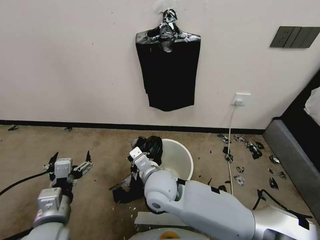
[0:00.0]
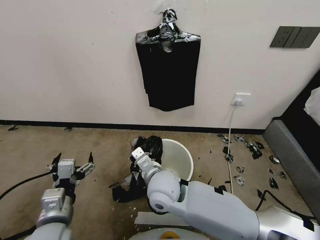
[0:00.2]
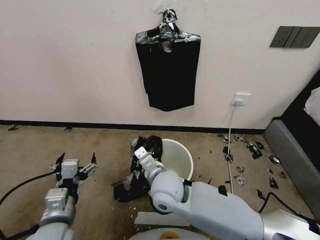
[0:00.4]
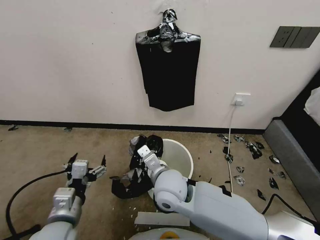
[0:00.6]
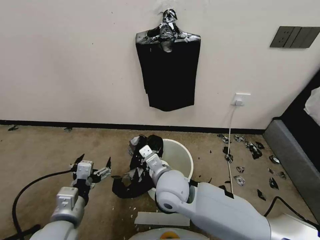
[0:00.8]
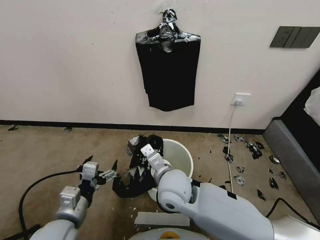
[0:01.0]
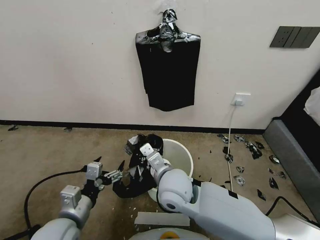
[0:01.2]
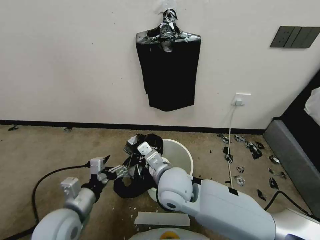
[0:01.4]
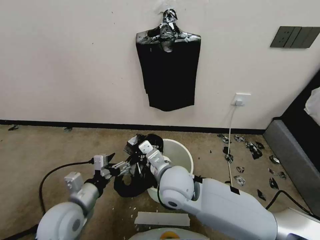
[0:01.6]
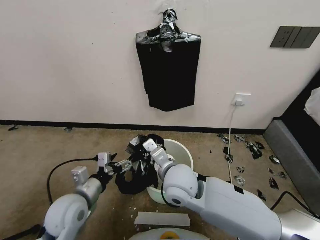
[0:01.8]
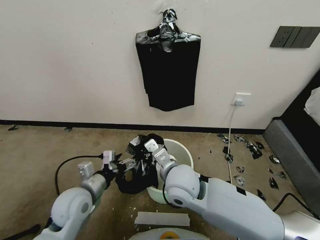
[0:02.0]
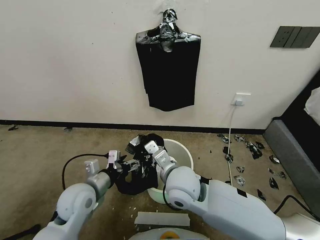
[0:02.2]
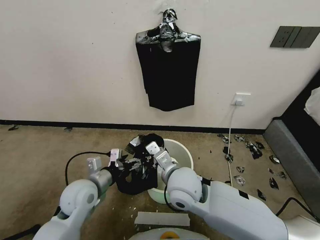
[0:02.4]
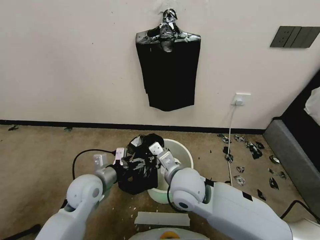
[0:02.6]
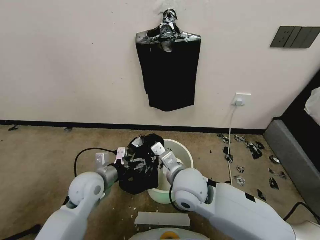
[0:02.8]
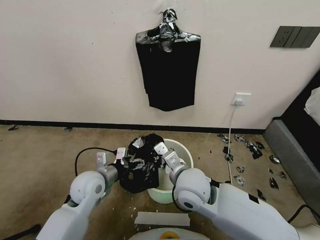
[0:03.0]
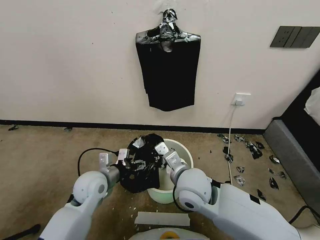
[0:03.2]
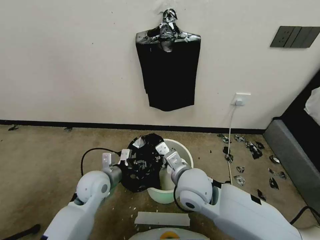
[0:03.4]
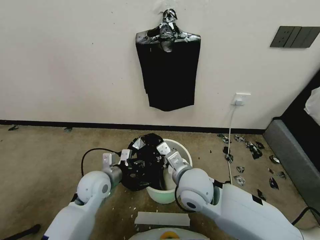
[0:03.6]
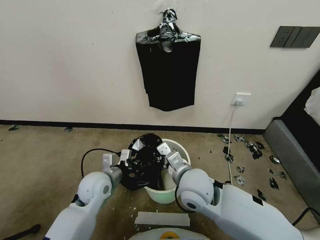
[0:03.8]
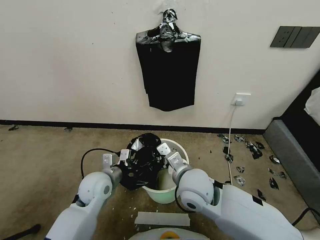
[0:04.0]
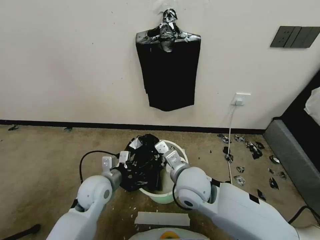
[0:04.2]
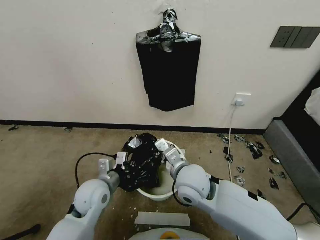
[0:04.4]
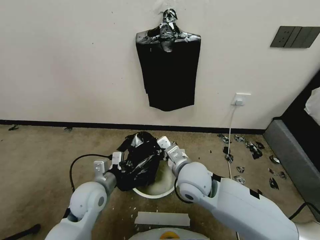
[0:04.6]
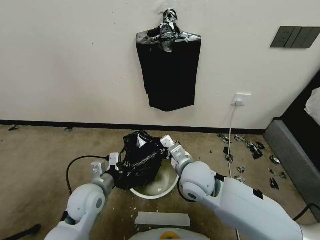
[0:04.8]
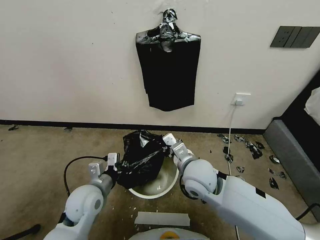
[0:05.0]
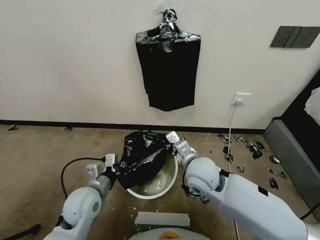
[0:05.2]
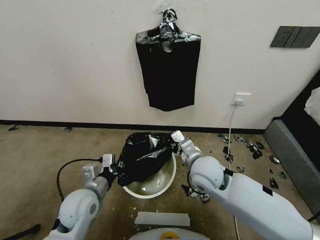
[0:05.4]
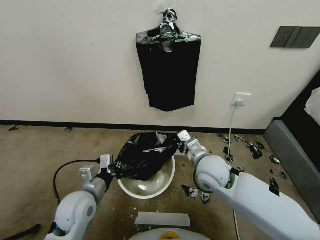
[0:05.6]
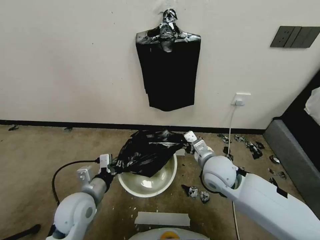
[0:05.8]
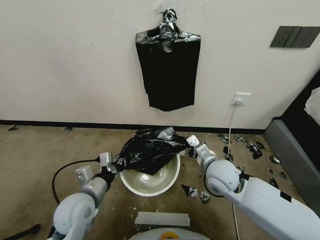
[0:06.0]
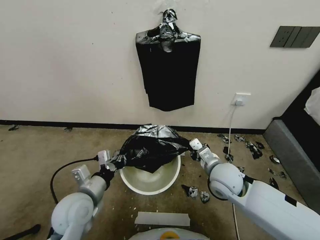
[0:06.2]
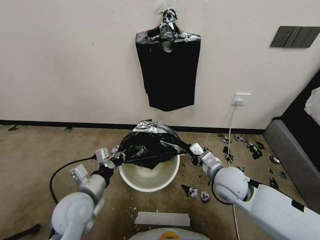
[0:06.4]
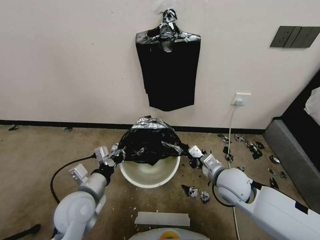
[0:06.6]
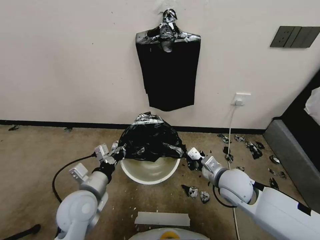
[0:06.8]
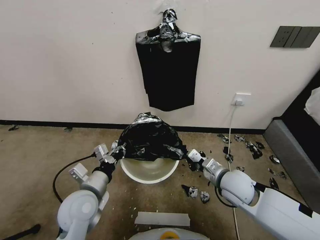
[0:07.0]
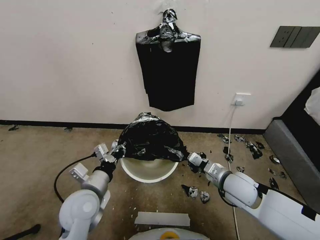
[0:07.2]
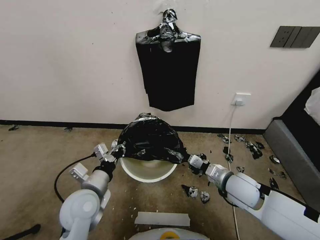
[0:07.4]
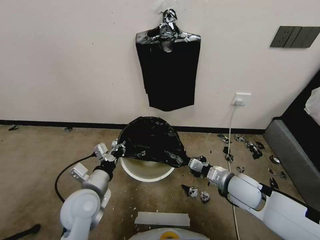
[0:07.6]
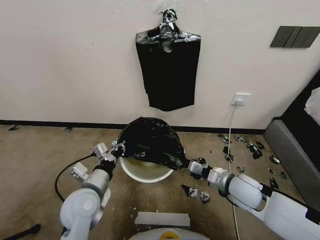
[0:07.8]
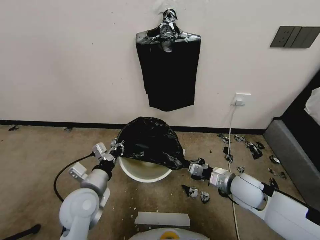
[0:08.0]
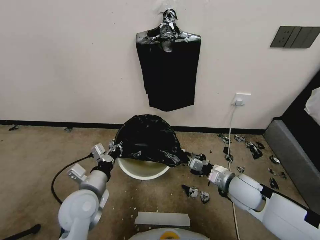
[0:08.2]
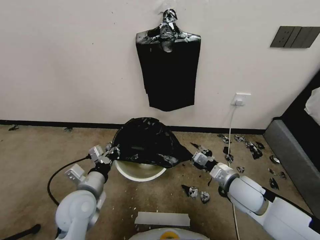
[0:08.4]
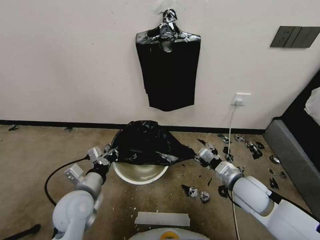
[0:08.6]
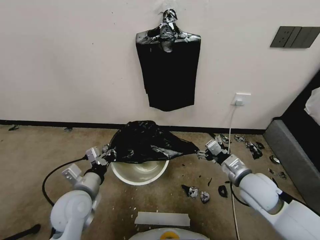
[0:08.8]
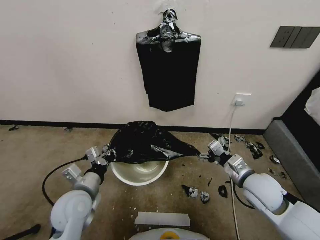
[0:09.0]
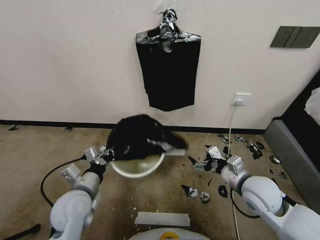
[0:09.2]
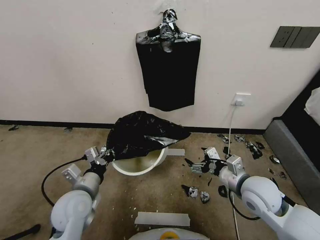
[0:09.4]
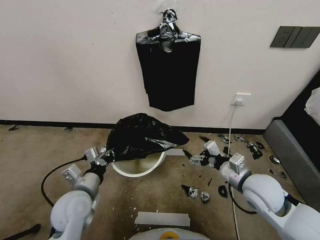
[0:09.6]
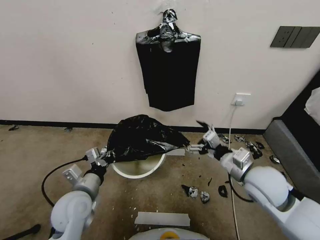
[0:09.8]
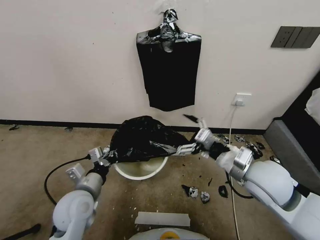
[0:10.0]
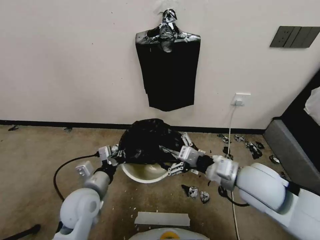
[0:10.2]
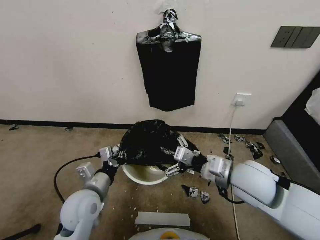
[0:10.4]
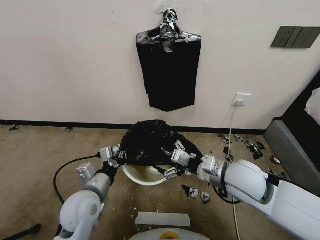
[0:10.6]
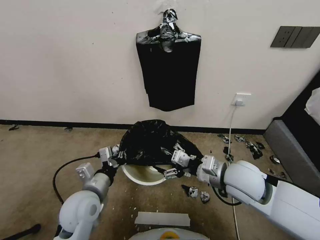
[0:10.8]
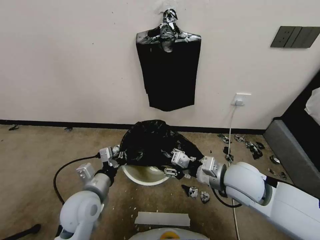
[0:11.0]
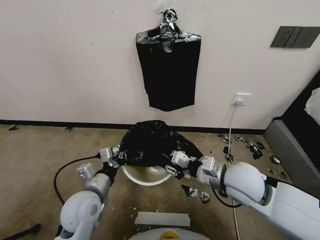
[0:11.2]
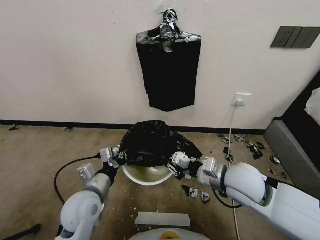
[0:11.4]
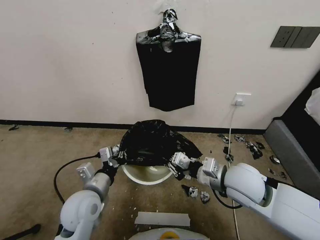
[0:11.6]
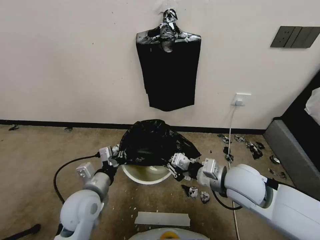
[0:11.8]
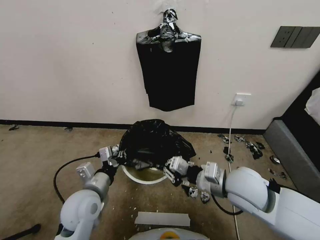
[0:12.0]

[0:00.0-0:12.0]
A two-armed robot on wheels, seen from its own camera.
Task of the whole recording: Place a trash bag onto the trash bin.
0:00.0 to 0:01.6: The right gripper shifts by roughly 5 cm. The left gripper travels forward by approximately 5 cm.
0:01.6 to 0:03.0: The left gripper heads forward, covering roughly 10 cm.
0:03.0 to 0:04.4: The left gripper closes.
0:04.4 to 0:06.0: The right gripper moves to the right, about 10 cm. The left gripper moves approximately 5 cm.
0:06.0 to 0:07.6: The right gripper shifts roughly 10 cm to the right.
0:07.6 to 0:09.0: The right gripper ends up roughly 5 cm from where it was, and opens.
0:09.0 to 0:10.4: The right gripper goes about 10 cm upward and to the left.
0:10.4 to 0:12.0: The right gripper closes.

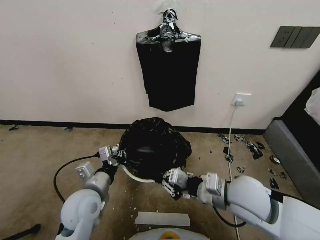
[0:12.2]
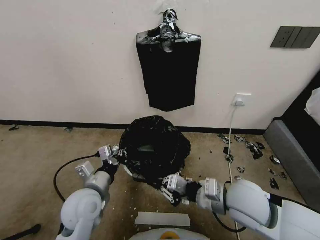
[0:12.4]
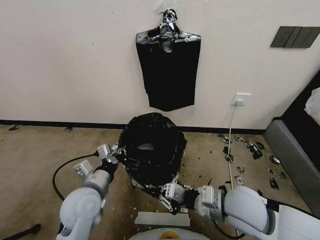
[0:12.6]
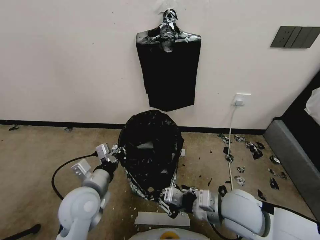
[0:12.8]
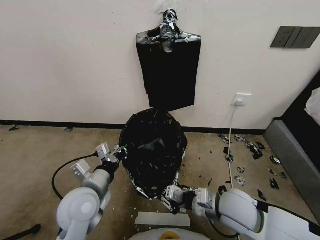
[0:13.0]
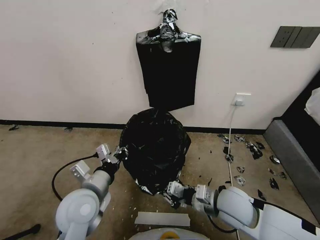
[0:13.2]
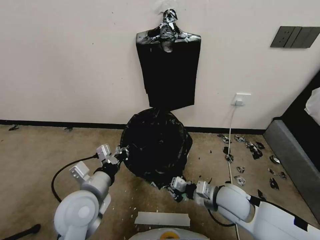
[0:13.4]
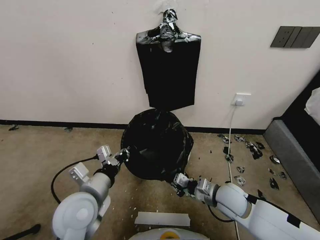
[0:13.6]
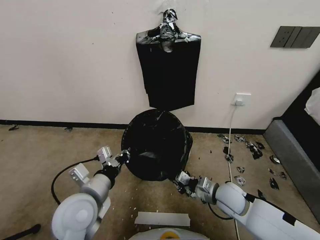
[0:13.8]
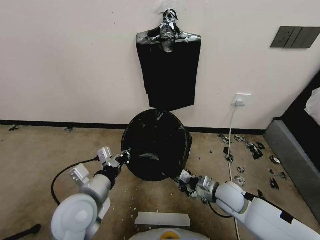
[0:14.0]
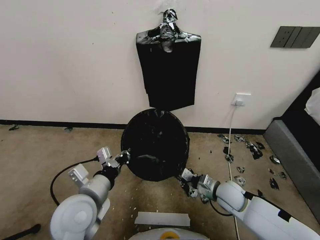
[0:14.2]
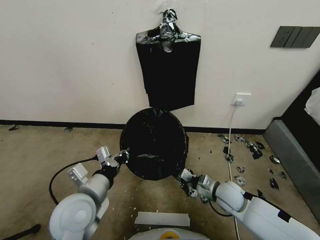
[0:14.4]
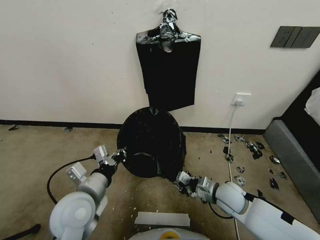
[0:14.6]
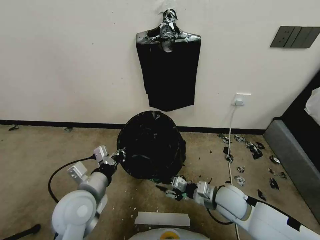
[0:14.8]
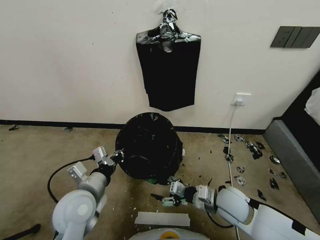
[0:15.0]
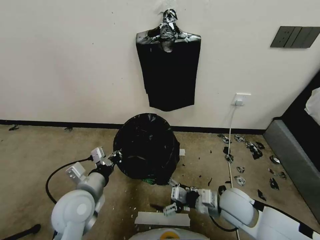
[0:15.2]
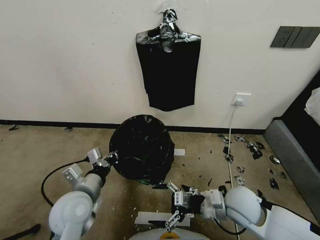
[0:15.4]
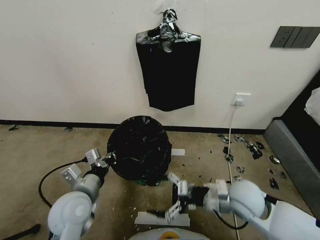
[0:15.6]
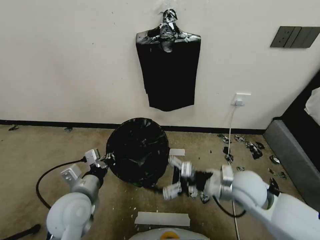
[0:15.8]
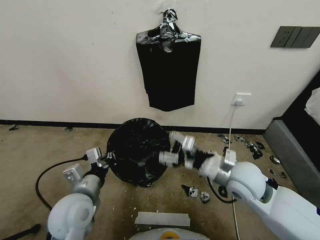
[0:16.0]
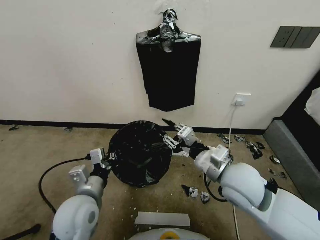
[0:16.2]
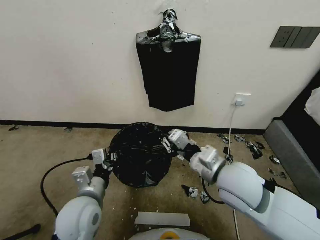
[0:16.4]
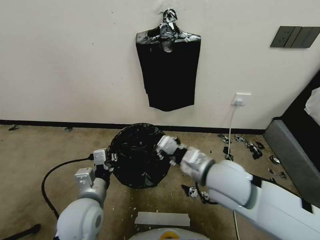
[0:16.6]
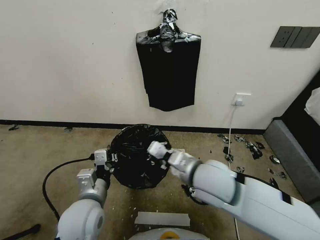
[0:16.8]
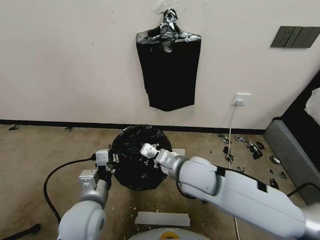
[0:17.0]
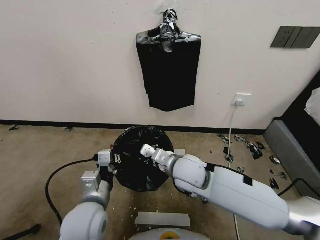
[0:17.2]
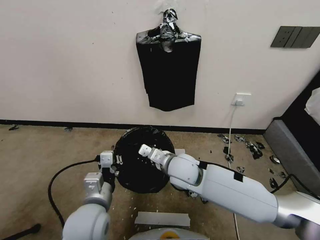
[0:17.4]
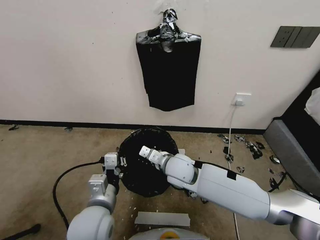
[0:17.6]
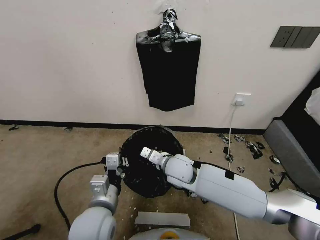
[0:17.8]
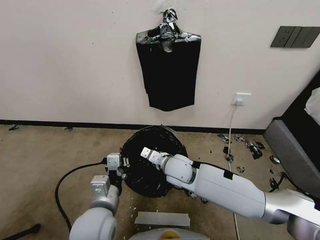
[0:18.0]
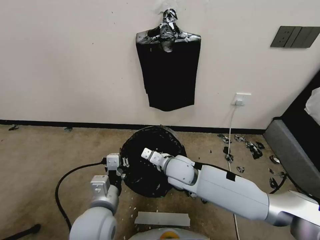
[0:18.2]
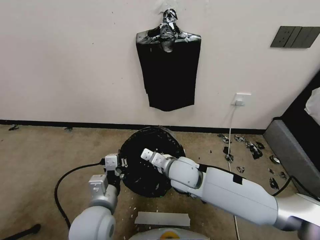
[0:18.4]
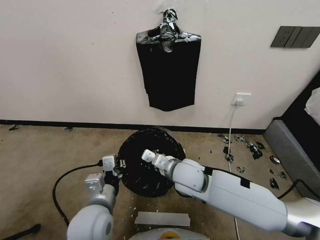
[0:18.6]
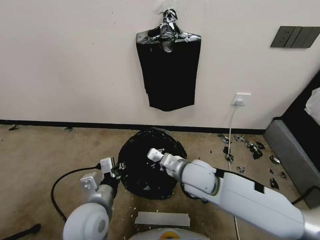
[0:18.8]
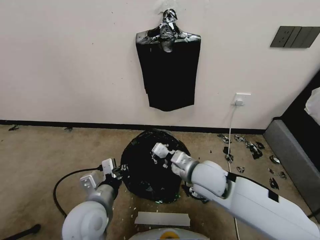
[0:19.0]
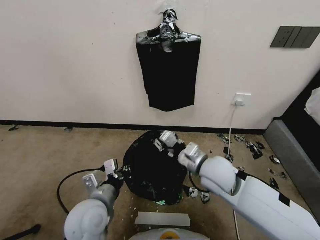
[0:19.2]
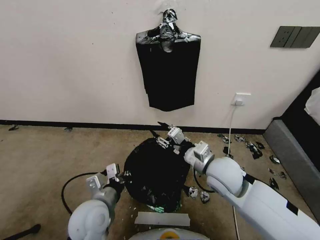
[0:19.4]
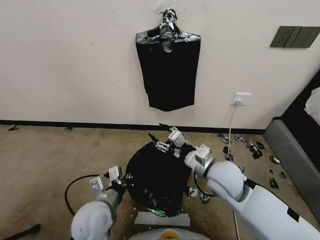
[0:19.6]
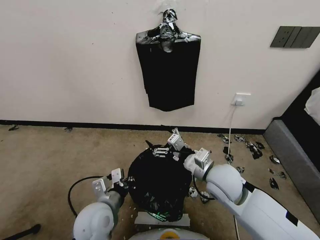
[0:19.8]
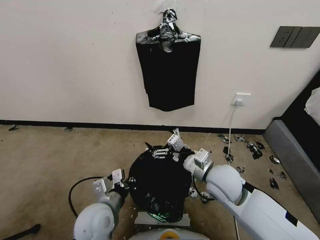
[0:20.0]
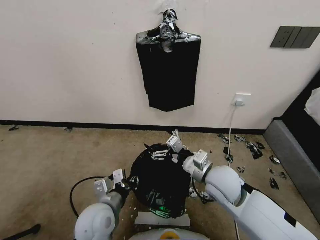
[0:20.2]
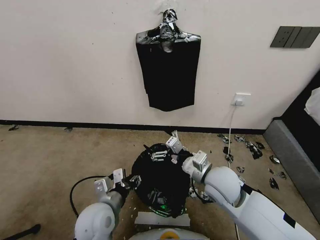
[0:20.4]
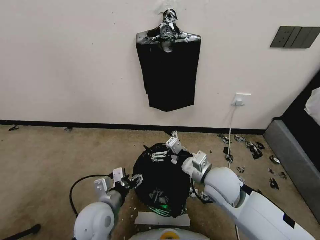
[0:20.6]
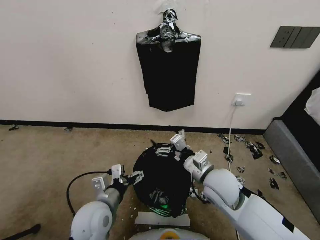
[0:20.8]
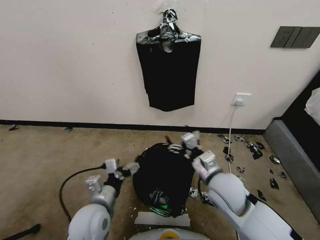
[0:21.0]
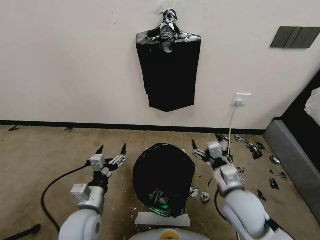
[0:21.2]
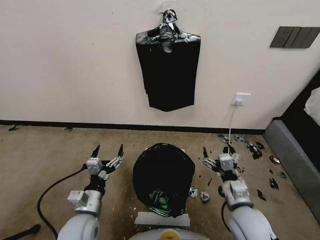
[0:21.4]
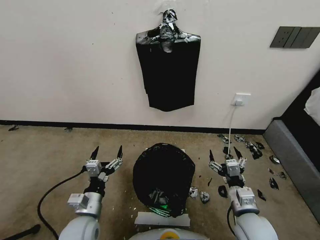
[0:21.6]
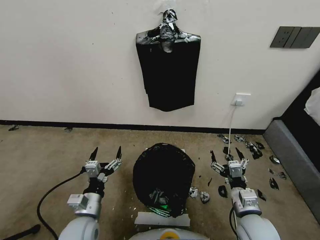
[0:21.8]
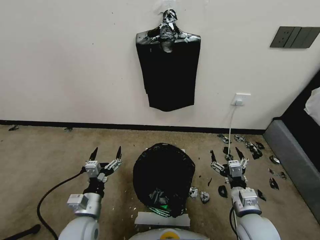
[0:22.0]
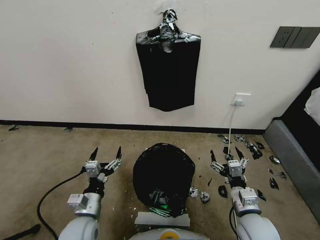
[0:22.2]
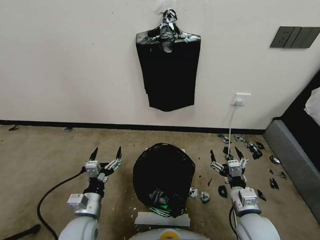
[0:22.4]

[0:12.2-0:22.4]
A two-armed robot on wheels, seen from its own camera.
Task of the whole recording: Place a trash bag onto the trash bin.
0:12.2 to 0:13.6: The right gripper shifts about 15 cm downward. The left gripper moves roughly 5 cm.
0:13.6 to 0:15.2: The right gripper opens up.
0:15.2 to 0:16.6: The right gripper moves upward and to the left, approximately 20 cm, and closes.
0:16.6 to 0:18.0: The right gripper shifts some 20 cm downward, to the left and forward.
0:18.0 to 0:19.4: The right gripper heads to the right and upward, covering roughly 15 cm, and opens.
0:19.4 to 0:21.0: The right gripper opens; the left gripper opens.
0:21.0 to 0:22.4: The right gripper heads backward, to the right and downward, covering roughly 15 cm. The left gripper is displaced downward by some 5 cm.
